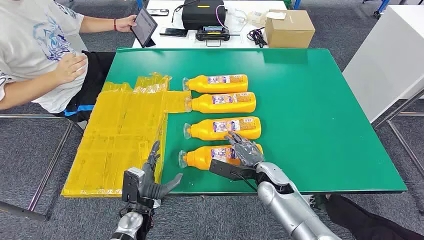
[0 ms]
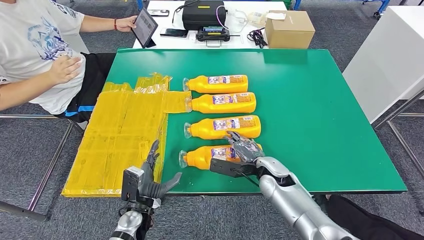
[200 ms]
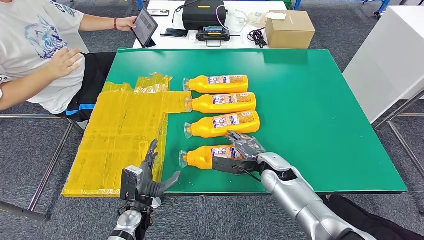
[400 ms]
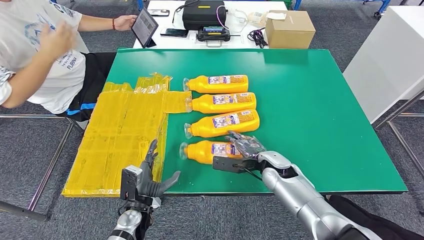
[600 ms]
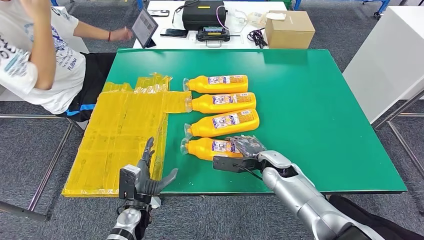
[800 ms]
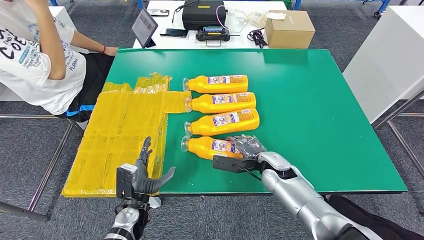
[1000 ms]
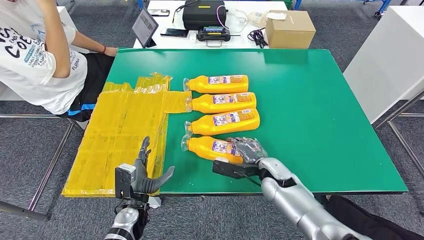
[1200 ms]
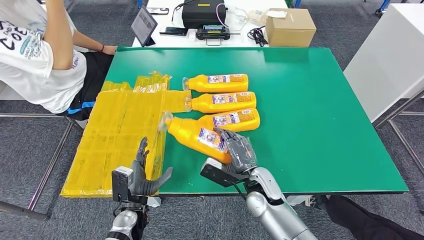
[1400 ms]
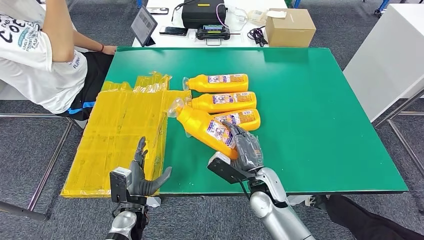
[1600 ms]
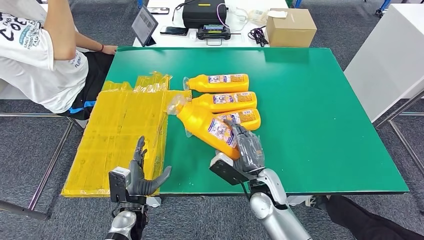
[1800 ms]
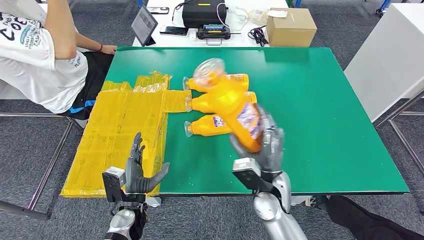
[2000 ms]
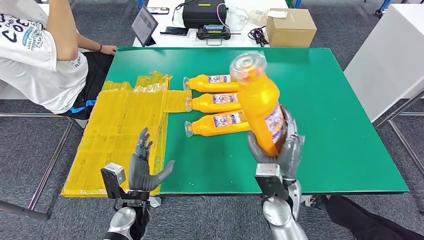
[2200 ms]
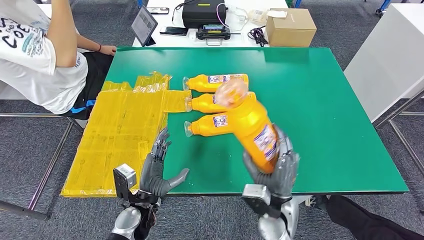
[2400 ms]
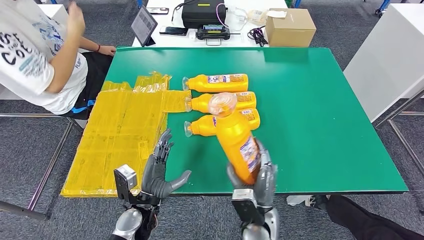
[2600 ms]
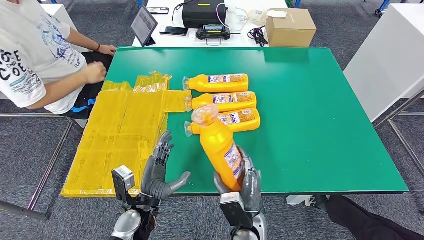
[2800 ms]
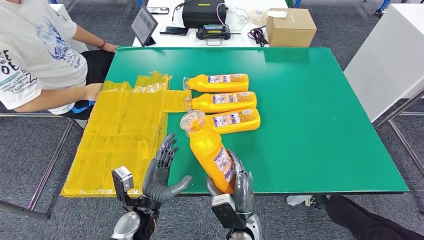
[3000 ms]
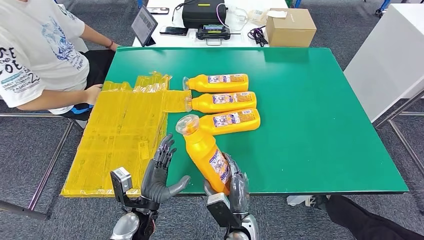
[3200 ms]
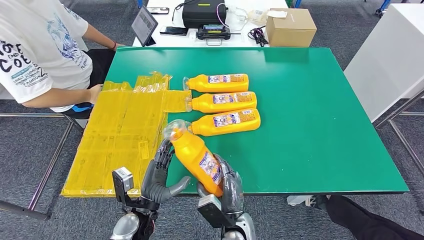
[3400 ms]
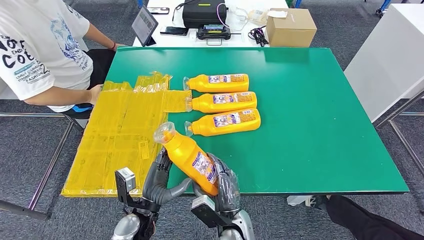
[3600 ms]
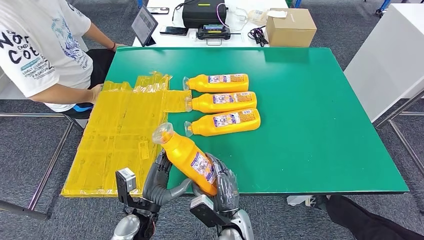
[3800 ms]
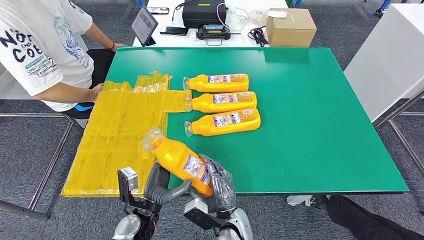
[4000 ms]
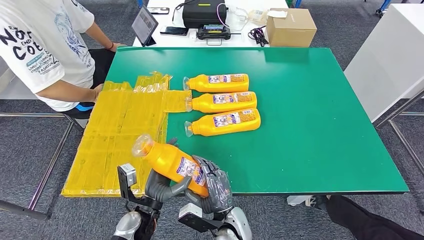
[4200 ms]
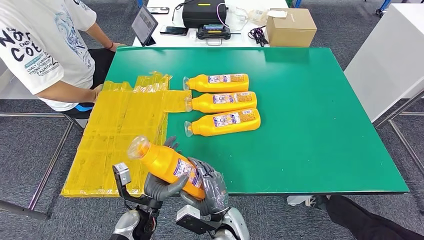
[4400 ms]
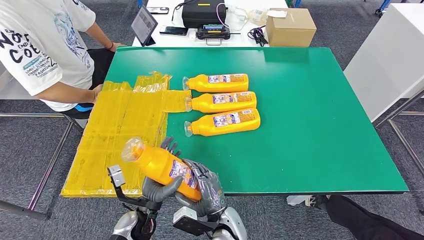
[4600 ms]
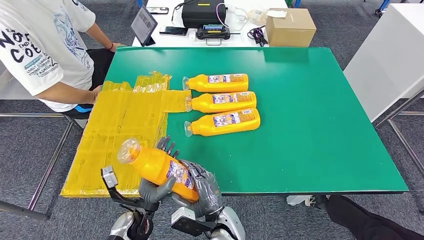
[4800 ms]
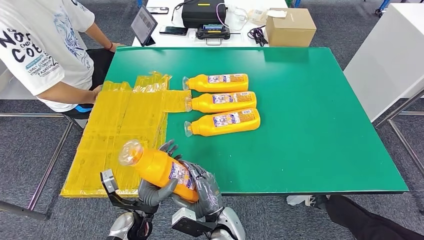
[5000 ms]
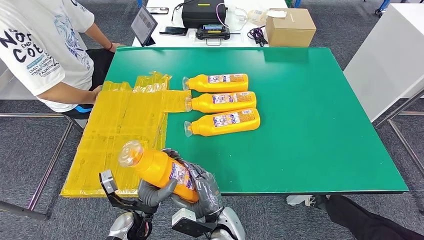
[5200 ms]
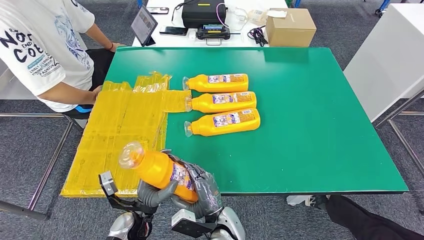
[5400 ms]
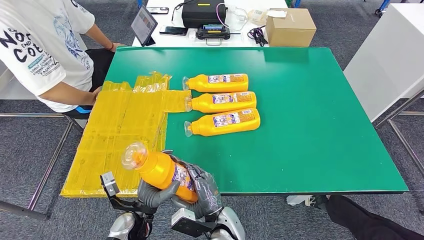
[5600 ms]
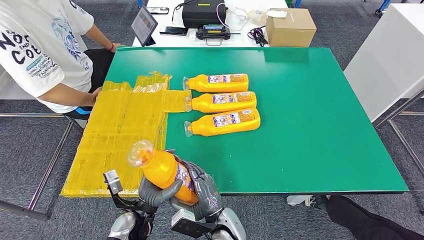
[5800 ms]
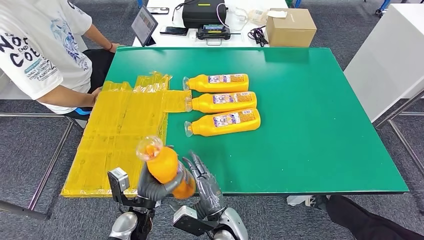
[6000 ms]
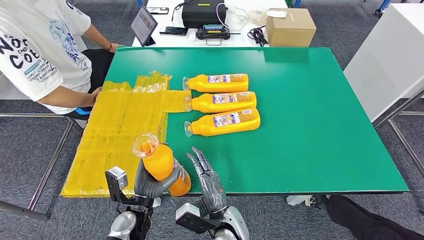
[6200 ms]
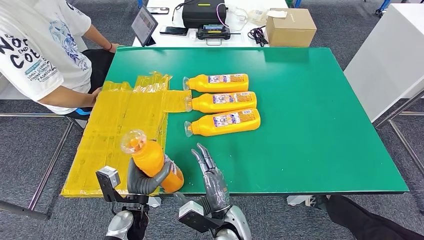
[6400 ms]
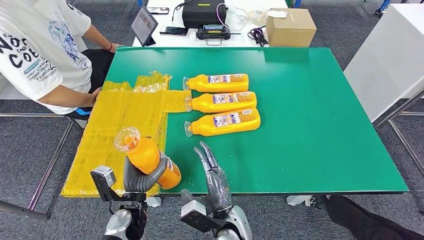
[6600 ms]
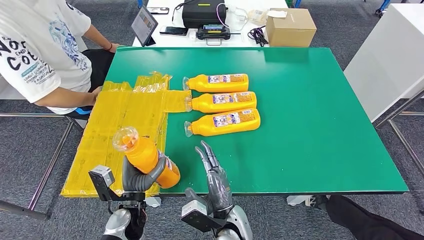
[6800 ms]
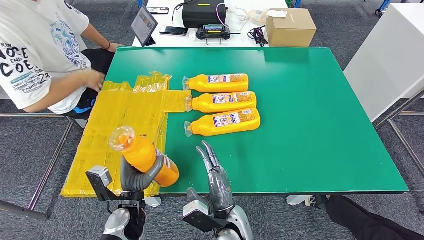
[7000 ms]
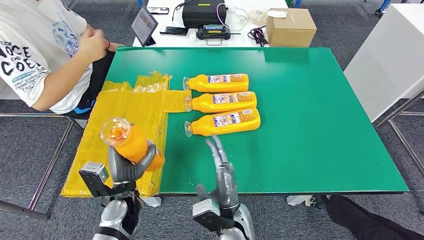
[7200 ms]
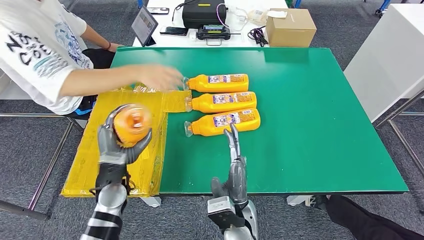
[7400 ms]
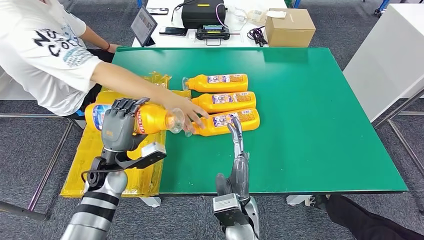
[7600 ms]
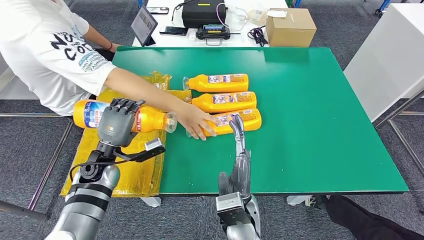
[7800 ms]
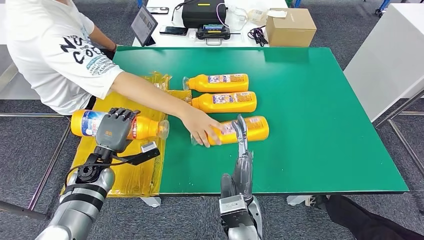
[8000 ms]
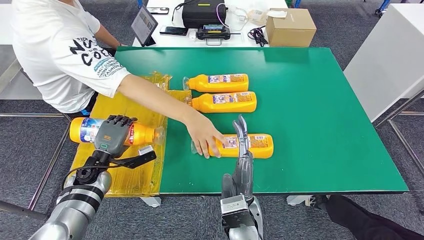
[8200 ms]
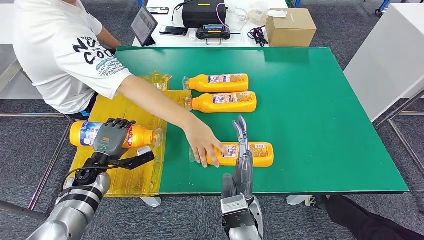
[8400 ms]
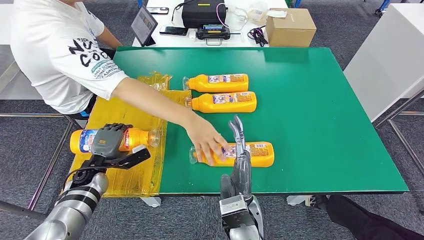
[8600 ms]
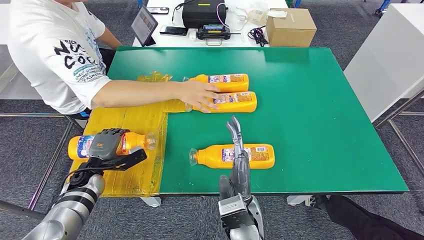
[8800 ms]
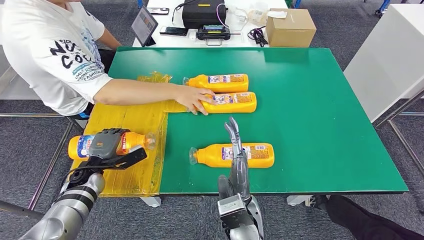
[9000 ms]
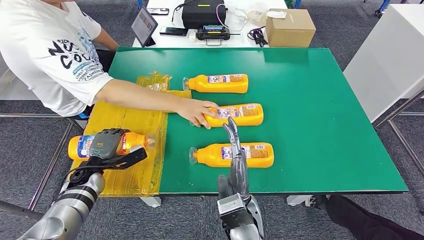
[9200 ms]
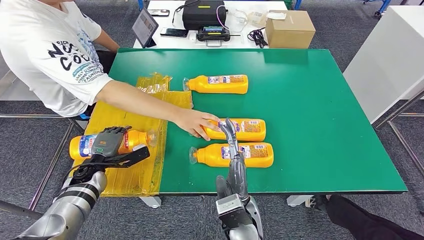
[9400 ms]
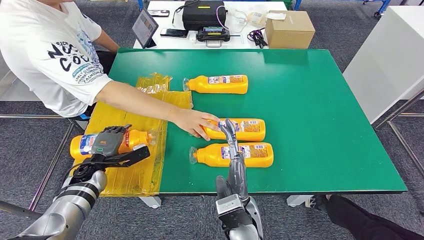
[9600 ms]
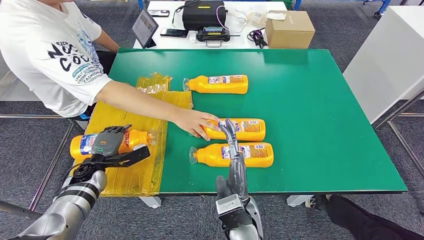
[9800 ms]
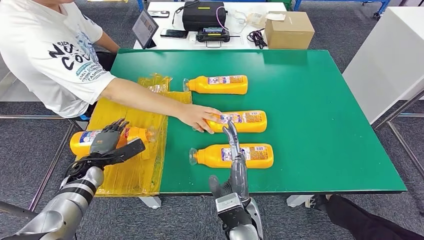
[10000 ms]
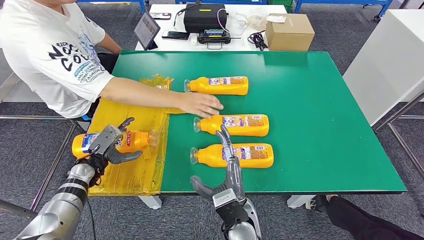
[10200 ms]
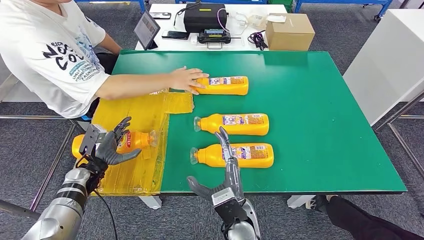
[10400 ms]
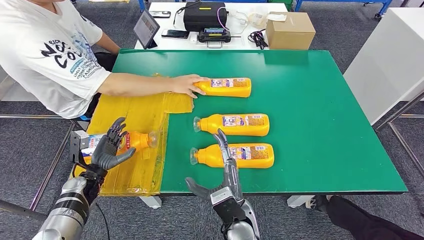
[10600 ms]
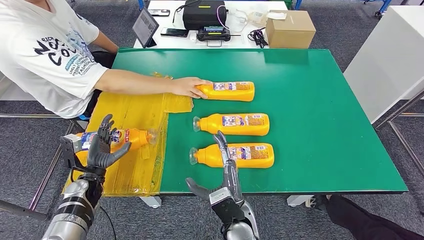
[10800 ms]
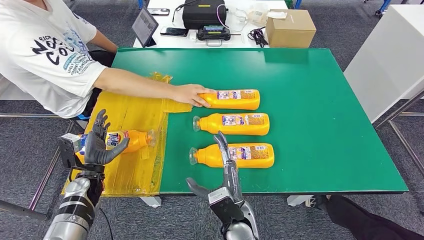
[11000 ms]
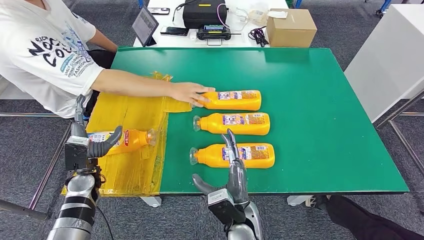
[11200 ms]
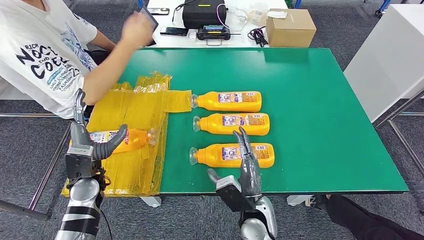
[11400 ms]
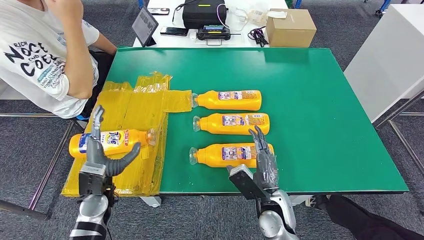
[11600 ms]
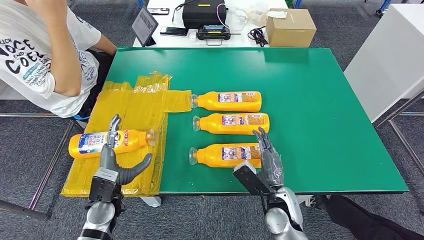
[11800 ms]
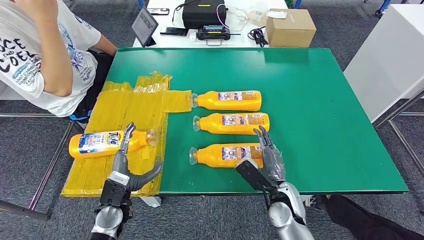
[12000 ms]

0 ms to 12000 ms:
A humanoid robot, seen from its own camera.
Step, 0 ms to 3200 ms: Take the bottle from the table.
Step, 3400 ms to 10000 ms: Flip the bottle to face forward.
1600 ms to 3000 ms: The right hand travels backward, to the left and downward by roughly 10 cm, while the left hand ends up about 5 cm from where it was.
4400 ms to 6000 ms: The hands move only a little.

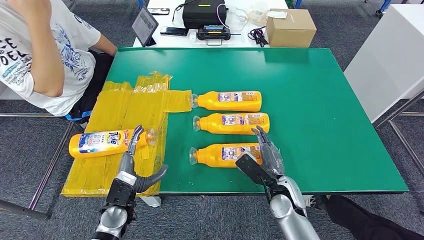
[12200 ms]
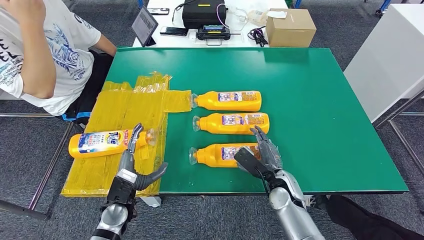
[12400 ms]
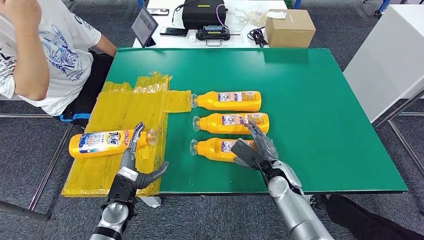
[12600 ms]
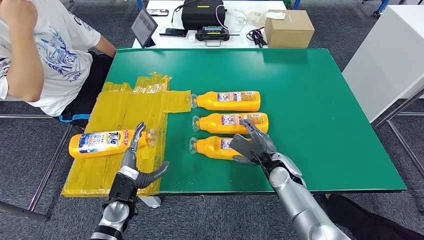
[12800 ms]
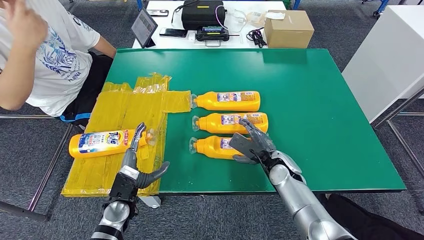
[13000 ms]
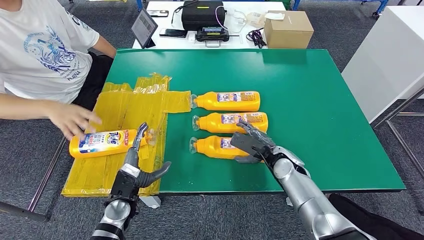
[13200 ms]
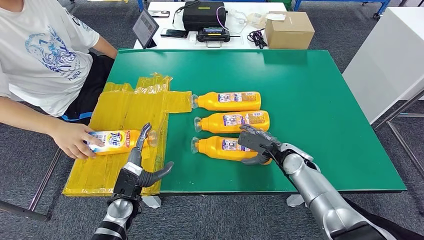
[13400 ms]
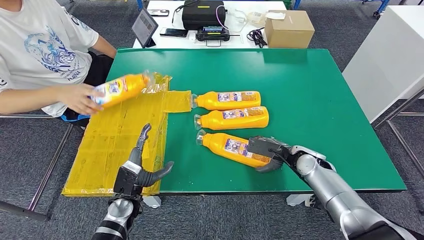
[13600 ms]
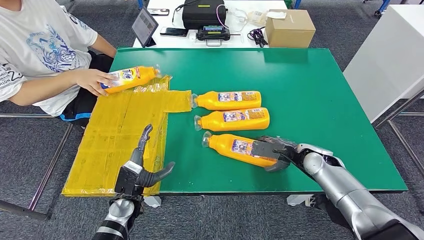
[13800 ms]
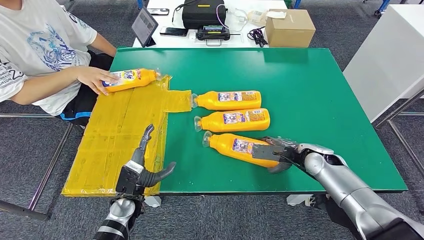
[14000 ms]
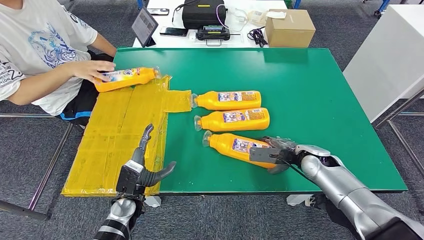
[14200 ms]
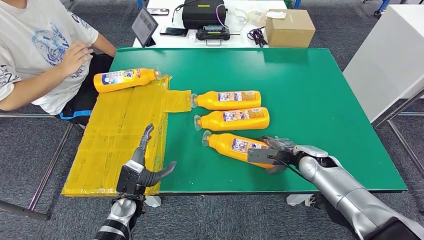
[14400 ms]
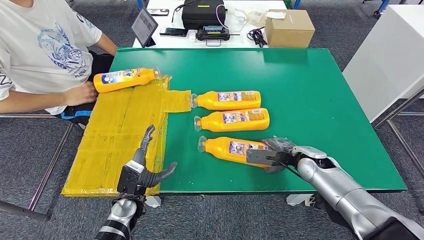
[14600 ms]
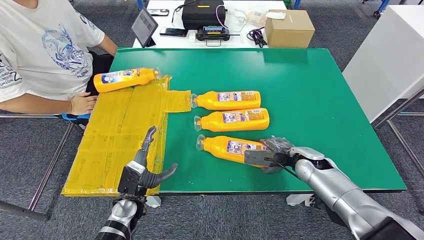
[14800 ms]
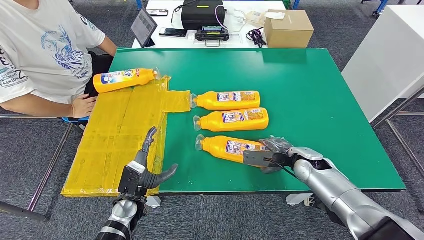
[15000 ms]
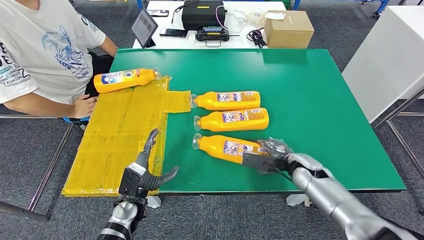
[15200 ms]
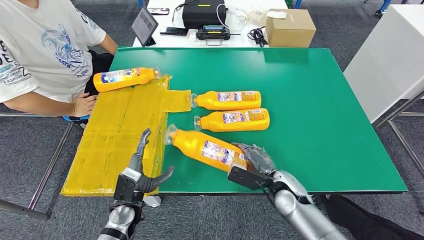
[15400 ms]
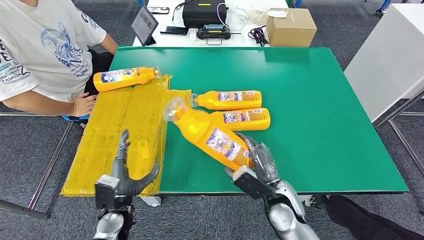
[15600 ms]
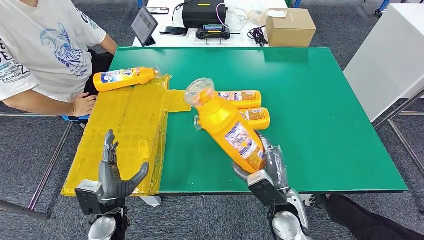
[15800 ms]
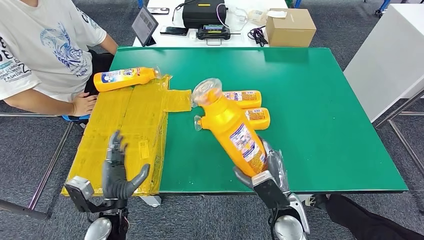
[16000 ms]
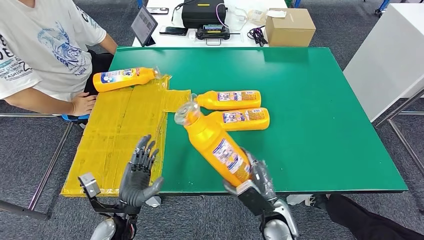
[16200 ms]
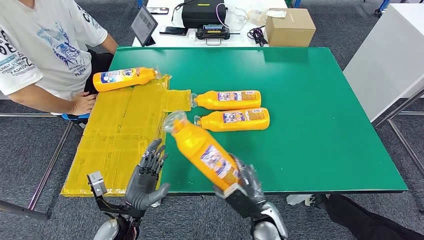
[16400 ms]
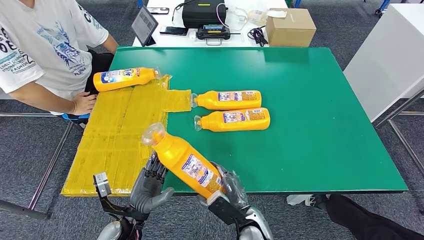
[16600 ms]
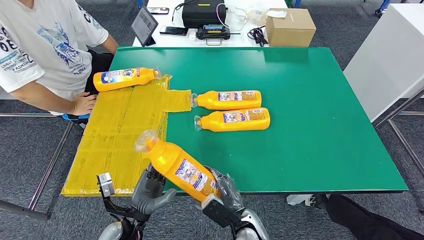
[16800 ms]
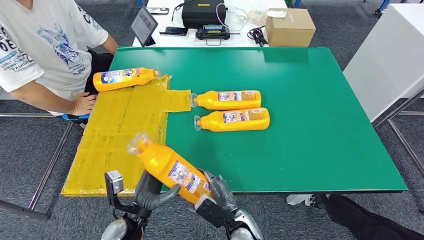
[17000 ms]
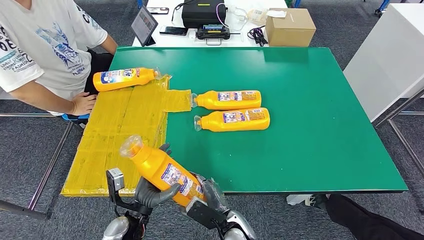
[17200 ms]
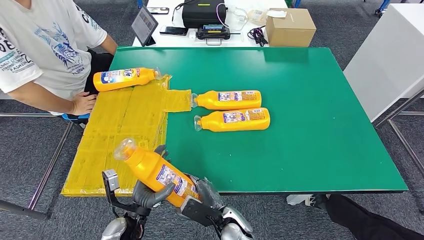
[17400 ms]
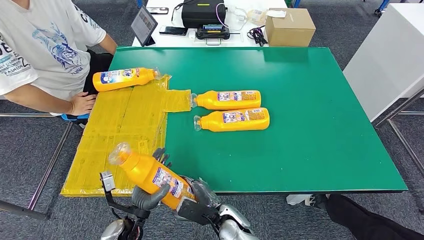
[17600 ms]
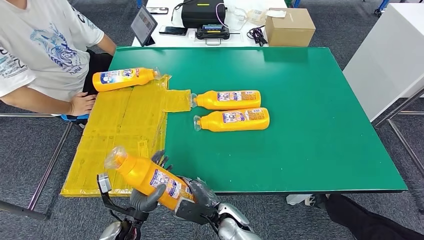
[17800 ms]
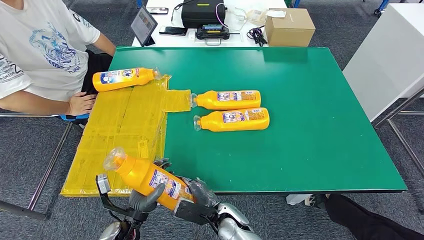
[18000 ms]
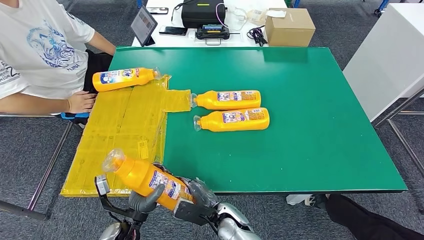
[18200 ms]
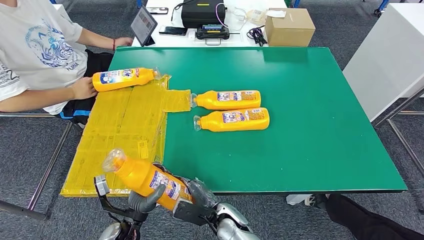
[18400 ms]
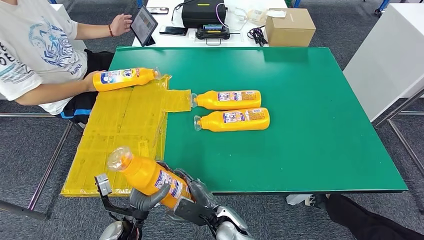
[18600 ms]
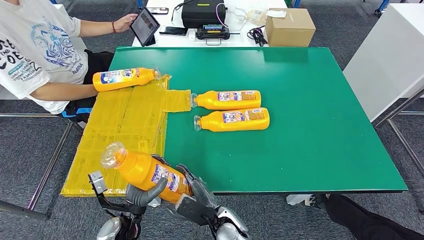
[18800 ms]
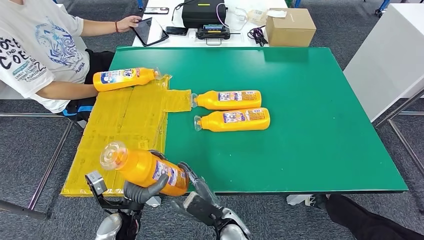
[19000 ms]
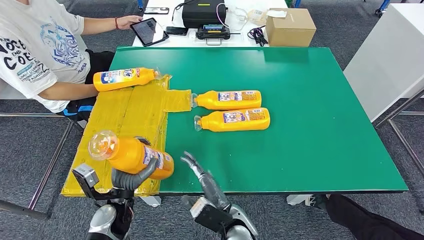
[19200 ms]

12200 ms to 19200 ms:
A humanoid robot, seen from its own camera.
Step, 12600 ms to 16000 ms: Pick up the bottle from the table.
16400 ms to 17800 ms: The right hand travels to the left by some 10 cm.
17800 ms to 19200 ms: Both hands move upward, about 5 cm.
